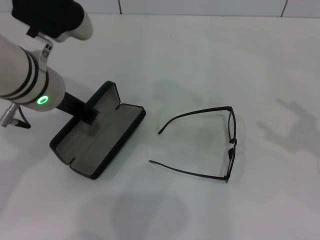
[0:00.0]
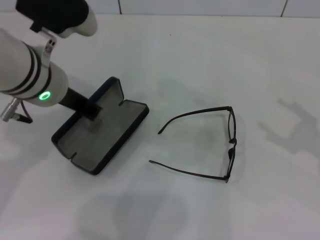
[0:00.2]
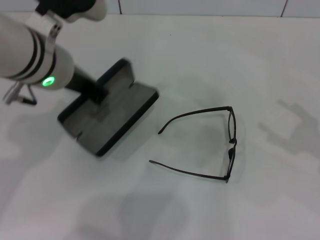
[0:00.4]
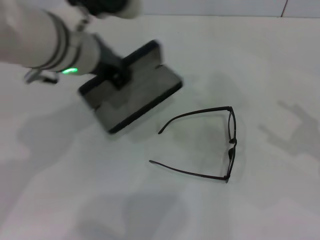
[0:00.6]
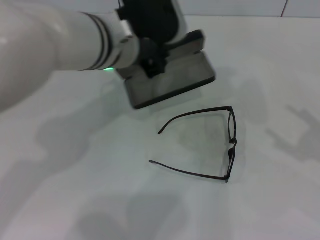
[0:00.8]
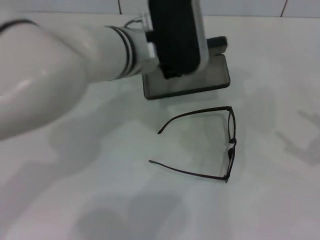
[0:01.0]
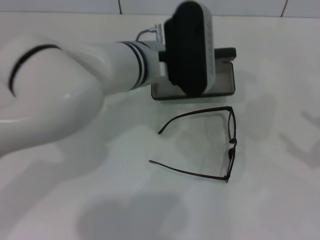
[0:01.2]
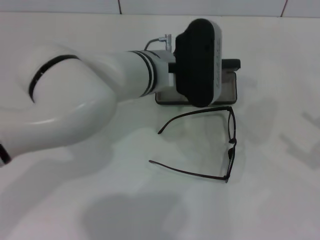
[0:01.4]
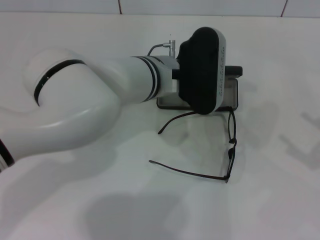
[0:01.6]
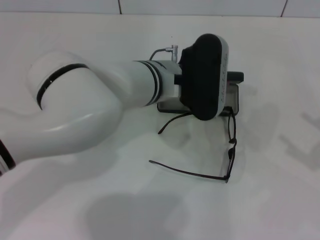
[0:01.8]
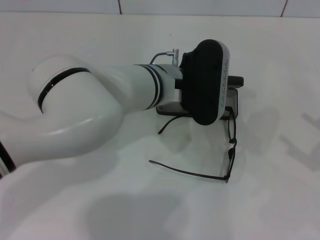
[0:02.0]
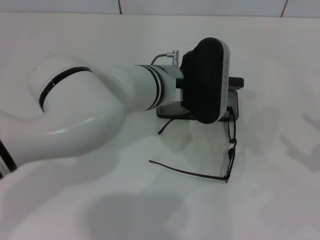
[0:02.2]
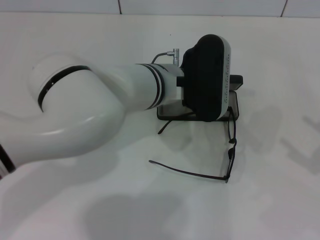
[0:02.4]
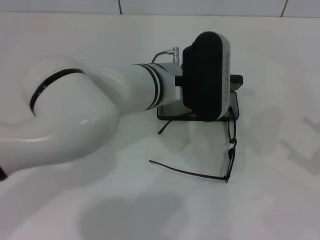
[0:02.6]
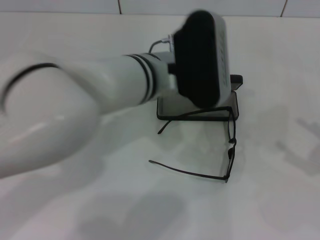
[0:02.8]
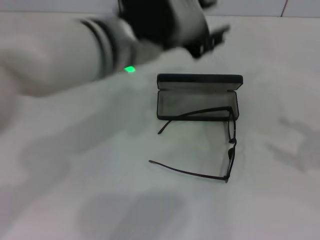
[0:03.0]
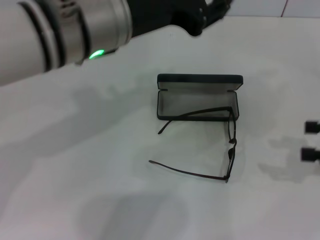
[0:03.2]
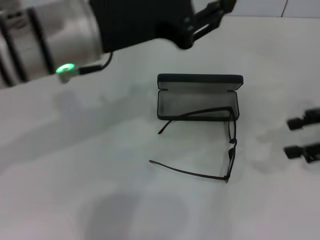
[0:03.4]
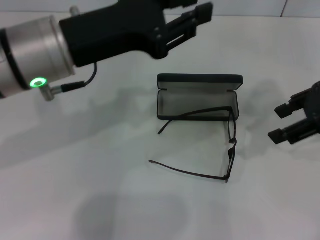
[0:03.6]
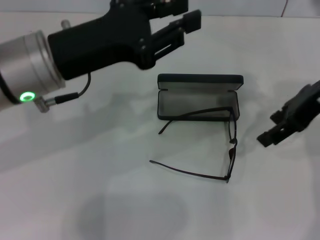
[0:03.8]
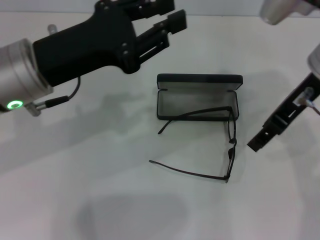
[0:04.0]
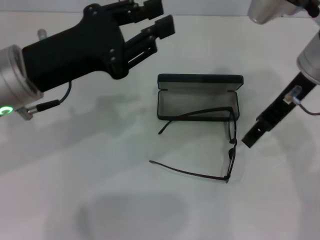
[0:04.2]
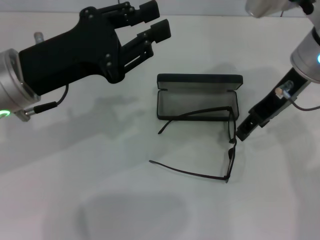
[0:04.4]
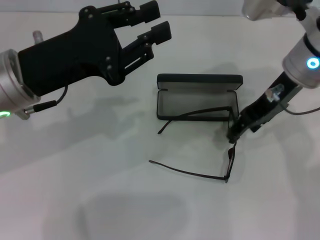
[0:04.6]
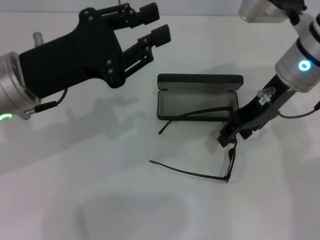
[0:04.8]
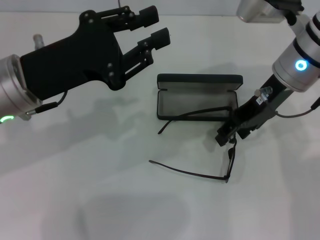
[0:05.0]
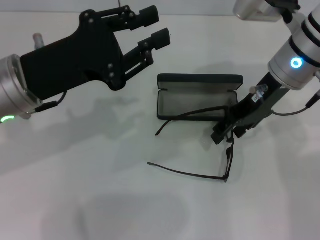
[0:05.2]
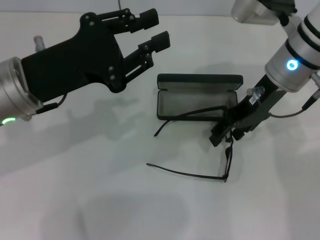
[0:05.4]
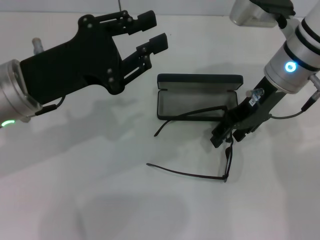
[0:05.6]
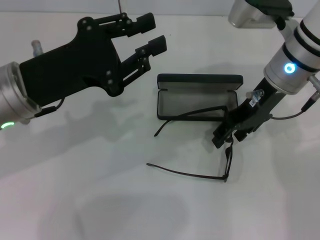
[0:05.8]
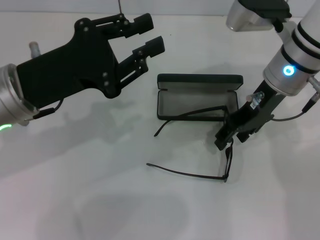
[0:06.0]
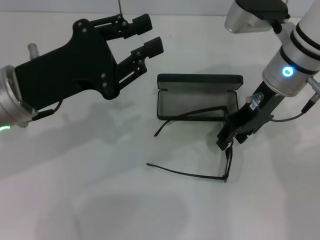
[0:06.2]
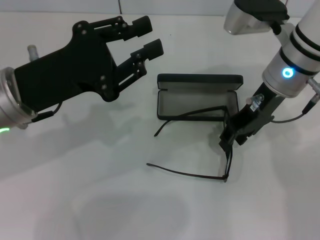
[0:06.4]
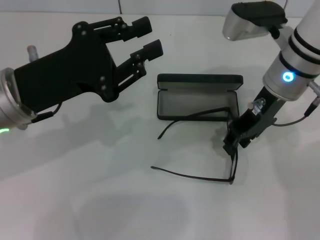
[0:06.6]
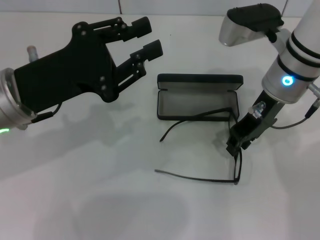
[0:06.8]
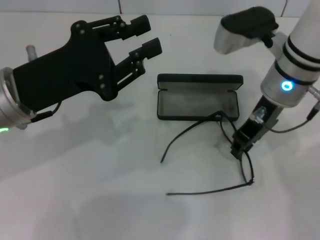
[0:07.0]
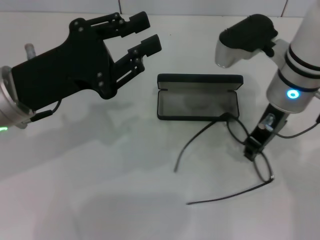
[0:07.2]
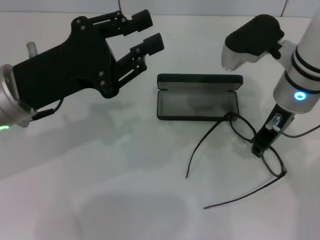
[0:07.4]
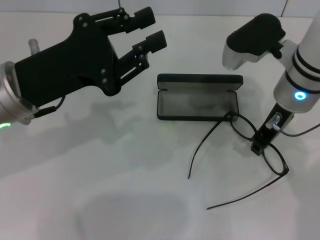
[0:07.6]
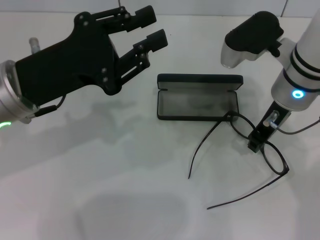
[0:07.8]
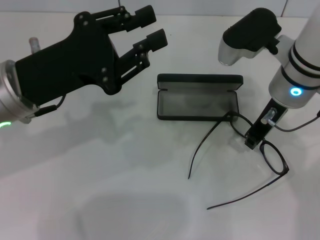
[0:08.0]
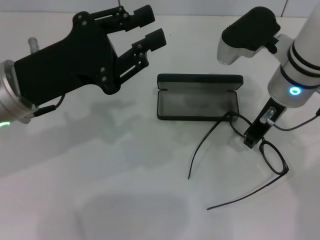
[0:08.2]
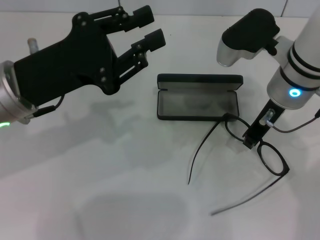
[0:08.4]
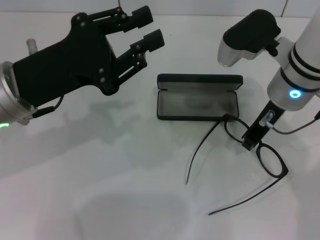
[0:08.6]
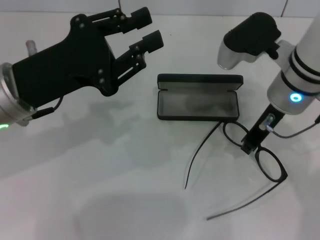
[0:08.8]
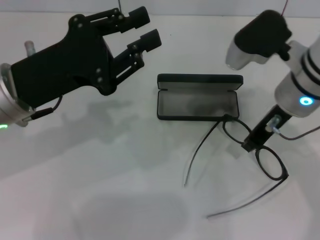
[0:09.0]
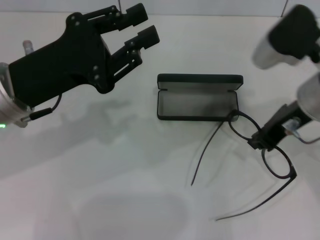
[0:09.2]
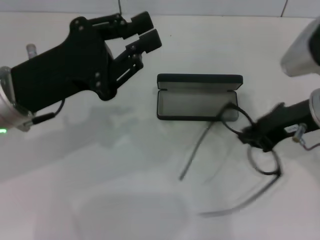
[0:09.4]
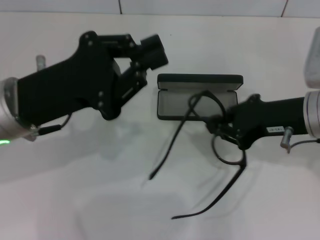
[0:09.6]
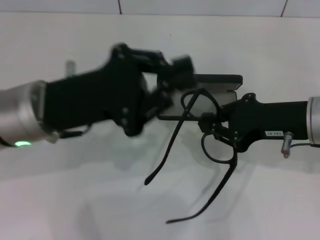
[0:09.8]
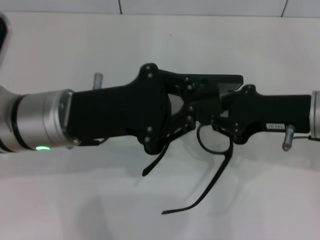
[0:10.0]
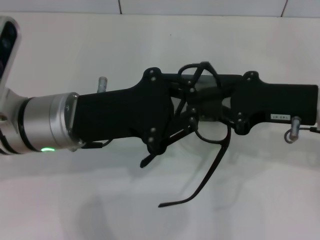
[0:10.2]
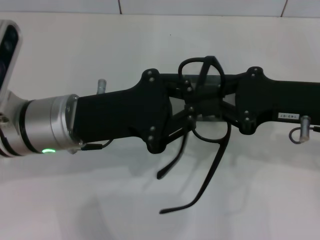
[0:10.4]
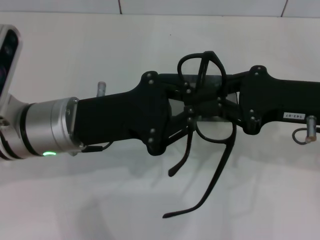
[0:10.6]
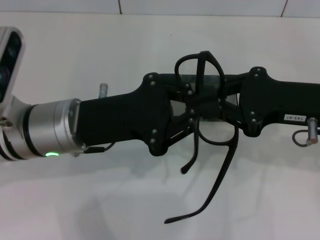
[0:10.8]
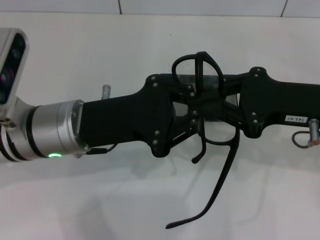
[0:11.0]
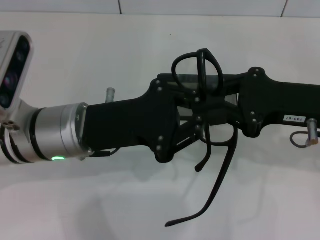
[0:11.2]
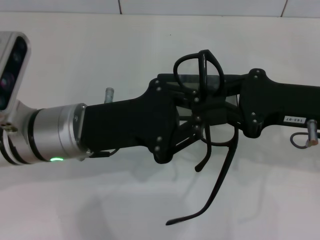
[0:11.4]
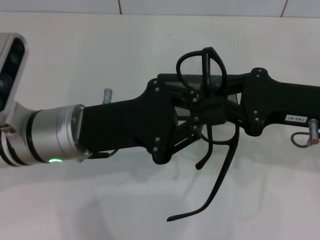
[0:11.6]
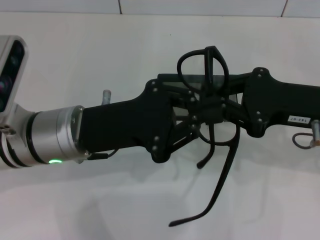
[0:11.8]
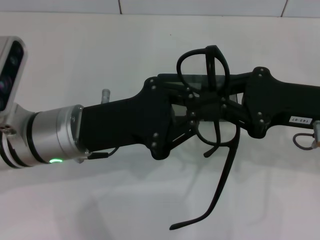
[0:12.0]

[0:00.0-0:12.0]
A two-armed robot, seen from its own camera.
Step, 0:00.0 to 0:02.4: Place the glasses case in the center of the table with your left hand.
Step, 0:02.6 to 0:08.8: Grab the eyeglass frame with your right hand.
0:00.0 to 0:01.6: The left gripper shifts roughly 15 cm to the right. Meanwhile the right gripper moves some 5 cm.
0:01.6 to 0:03.0: The left gripper heads upward, covering roughly 10 cm, and opens up.
0:03.0 to 0:04.4: The left gripper travels to the left by about 15 cm; the right gripper heads to the left, forward and upward, covering some 30 cm.
0:06.0 to 0:07.6: The right gripper closes.
0:07.6 to 0:09.0: The grippers make only small movements.
0:09.0 to 0:10.4: The right gripper goes approximately 10 cm backward and to the right. The left gripper is displaced to the right by approximately 5 cm.
0:10.4 to 0:12.0: There are only small adjustments of the grippers.

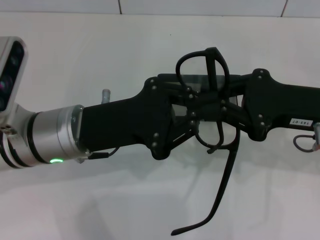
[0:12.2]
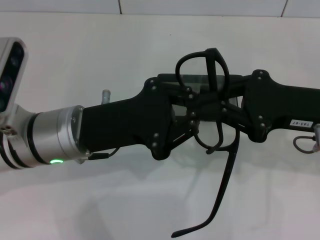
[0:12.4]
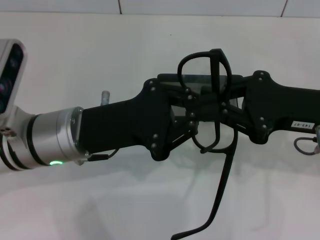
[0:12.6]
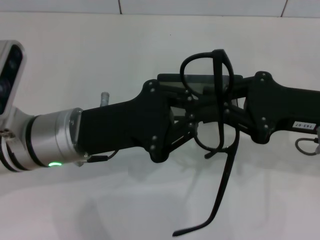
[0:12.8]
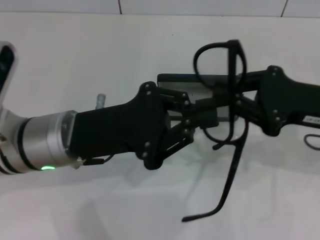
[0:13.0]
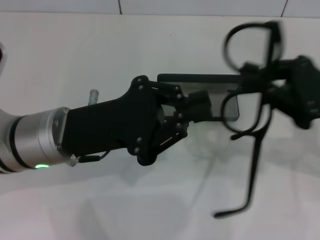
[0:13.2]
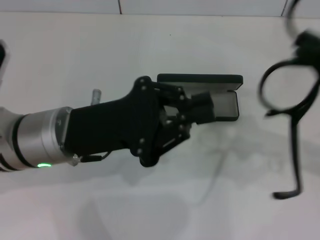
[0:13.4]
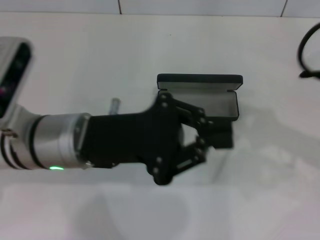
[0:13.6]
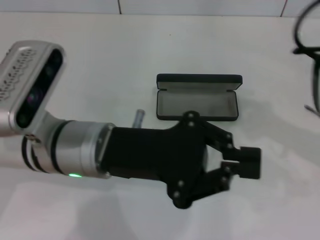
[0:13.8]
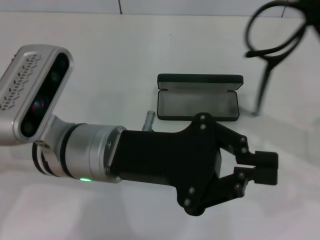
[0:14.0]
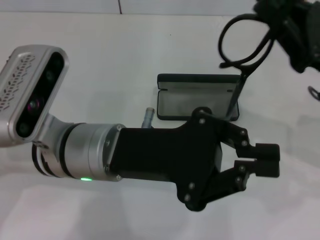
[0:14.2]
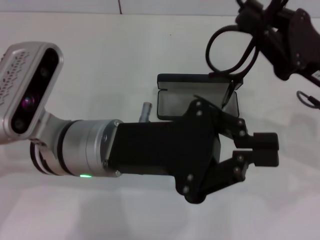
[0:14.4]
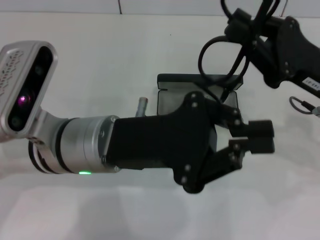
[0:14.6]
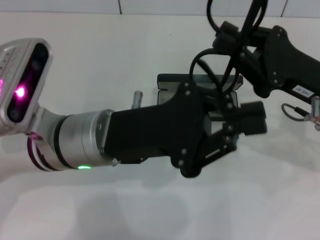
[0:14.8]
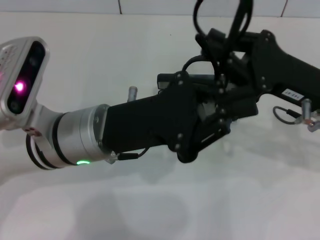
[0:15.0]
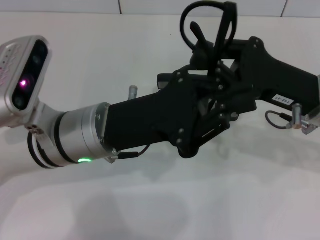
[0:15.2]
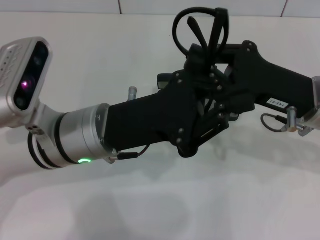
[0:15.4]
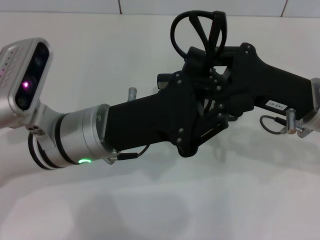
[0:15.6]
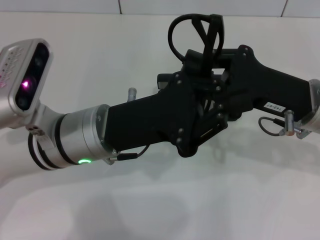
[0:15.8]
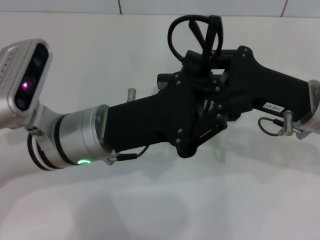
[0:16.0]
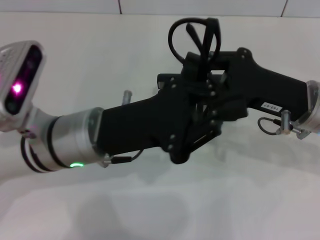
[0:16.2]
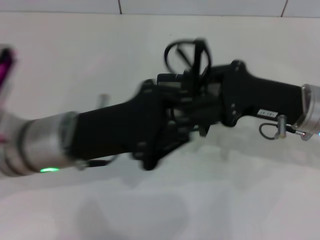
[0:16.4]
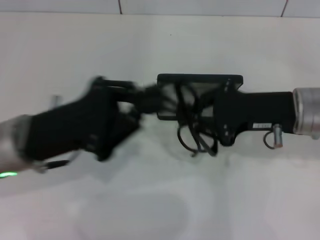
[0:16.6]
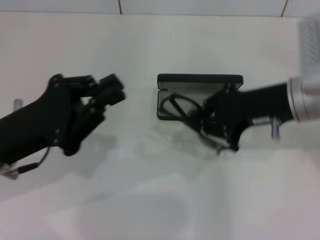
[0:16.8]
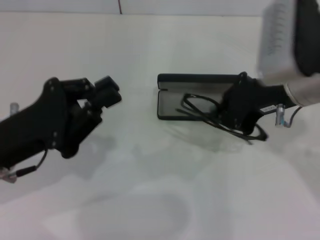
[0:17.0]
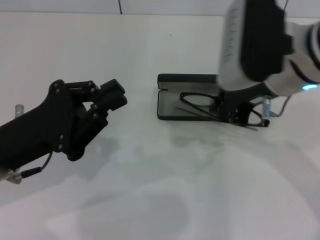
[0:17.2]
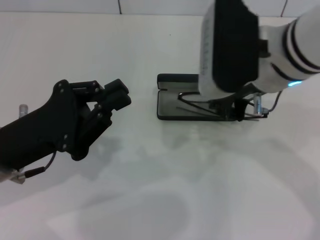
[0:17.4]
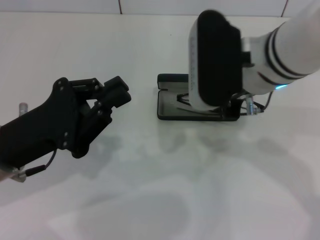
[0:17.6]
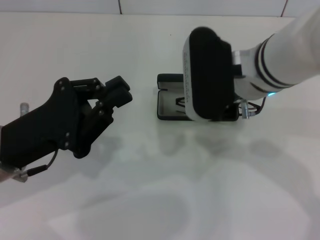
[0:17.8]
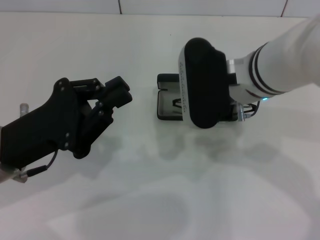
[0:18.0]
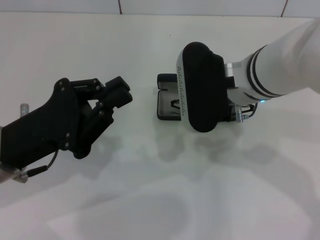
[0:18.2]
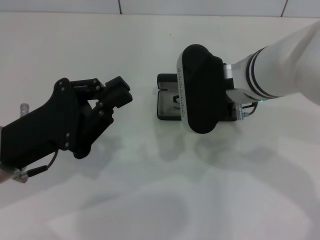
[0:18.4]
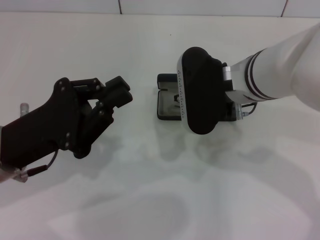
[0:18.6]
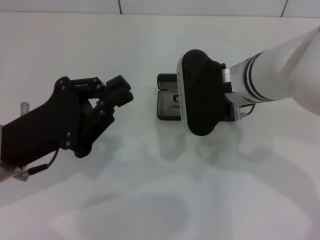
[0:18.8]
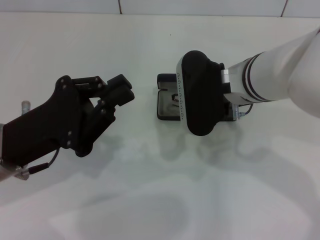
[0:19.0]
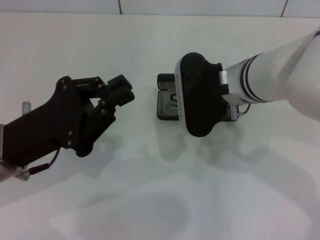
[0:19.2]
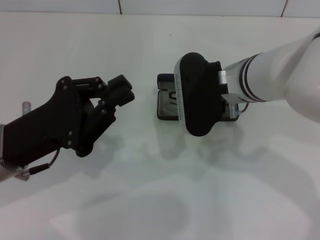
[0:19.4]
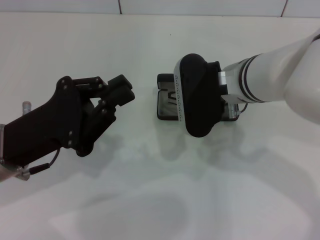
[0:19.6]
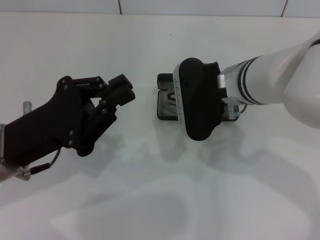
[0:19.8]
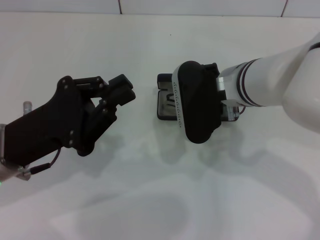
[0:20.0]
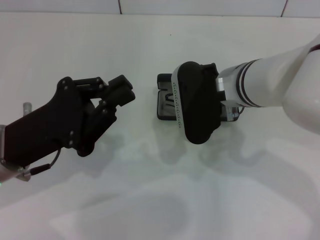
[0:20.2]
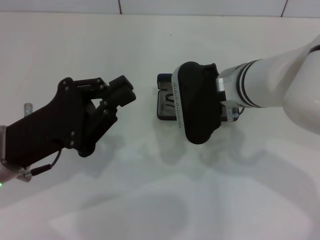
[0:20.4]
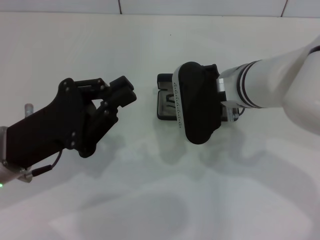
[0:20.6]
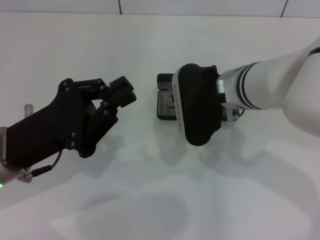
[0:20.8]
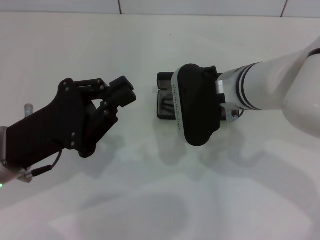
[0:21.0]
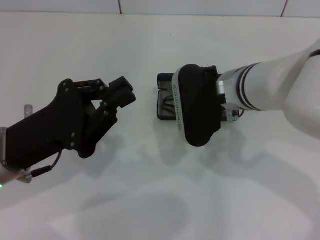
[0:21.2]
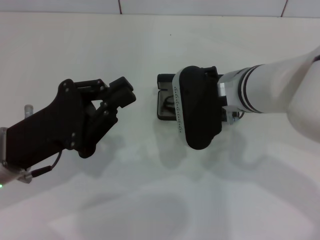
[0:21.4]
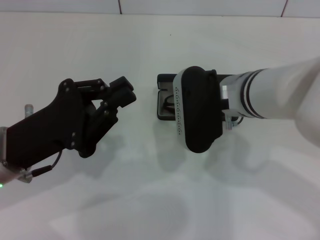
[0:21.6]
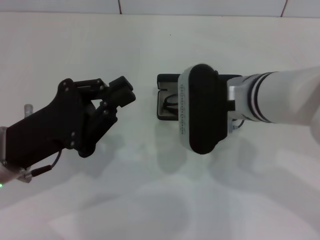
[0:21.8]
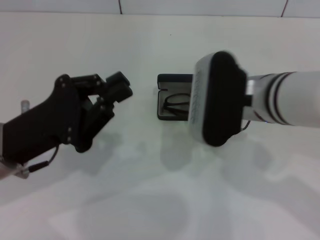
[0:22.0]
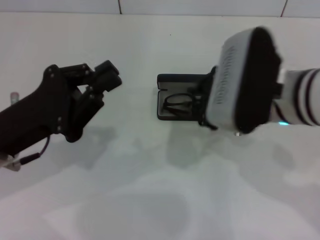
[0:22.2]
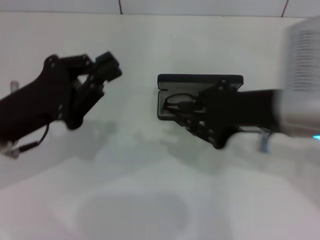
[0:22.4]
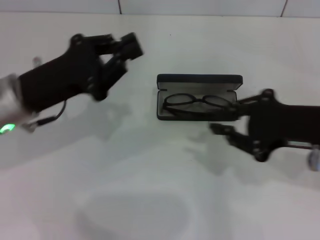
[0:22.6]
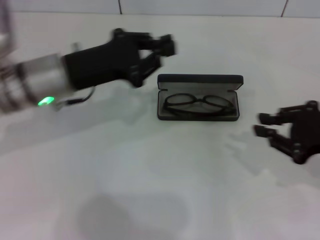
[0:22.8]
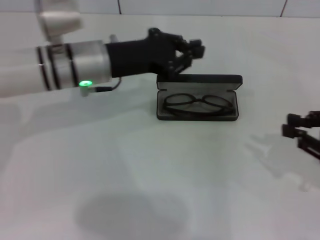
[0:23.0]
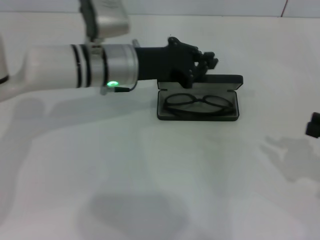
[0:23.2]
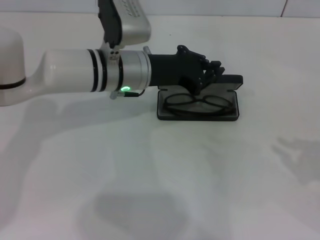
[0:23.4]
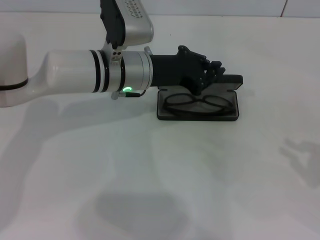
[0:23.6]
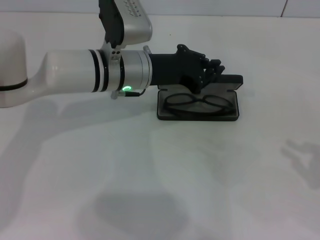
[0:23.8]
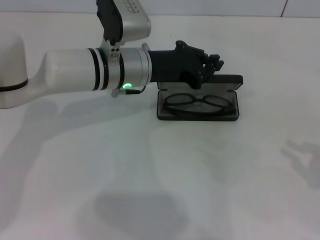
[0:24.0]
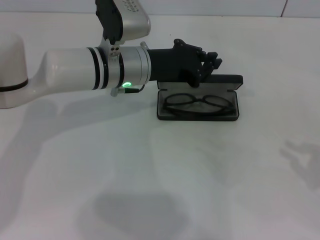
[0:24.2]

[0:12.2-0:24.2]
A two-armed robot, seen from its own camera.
Step, 0:12.2 to 0:16.2: Lift the glasses with your right hand.
Step, 0:16.4 to 0:21.4: Put the glasses into the case with your right hand.
0:12.2 to 0:13.8: The right gripper heads to the right, covering about 5 cm.
0:13.8 to 0:15.2: The right gripper is displaced to the left by approximately 10 cm.
0:15.2 to 0:16.6: The left gripper heads to the left, covering roughly 10 cm.
0:16.6 to 0:18.2: The right gripper is displaced to the left by some 10 cm.
0:18.2 to 0:19.8: There are only small adjustments of the grippers.
0:19.8 to 0:21.2: The two grippers keep their place.
0:21.2 to 0:22.6: The right gripper shifts roughly 15 cm to the right and backward, while the left gripper is displaced forward by approximately 5 cm.
0:22.6 to 0:24.2: The left gripper goes approximately 15 cm to the right and forward; the right gripper shifts some 15 cm to the right.
